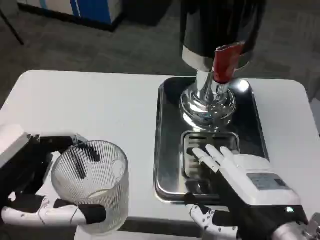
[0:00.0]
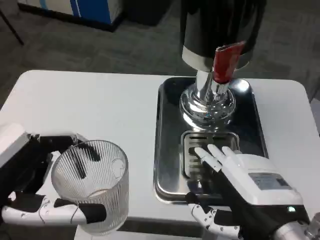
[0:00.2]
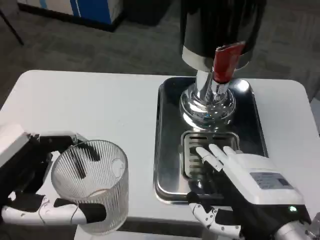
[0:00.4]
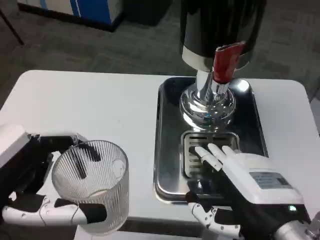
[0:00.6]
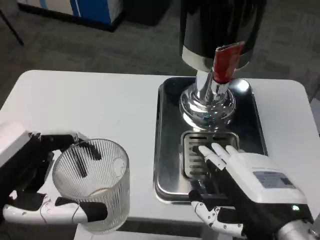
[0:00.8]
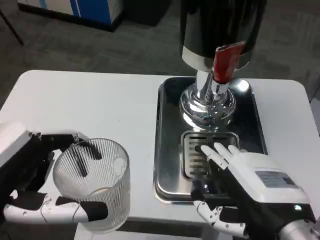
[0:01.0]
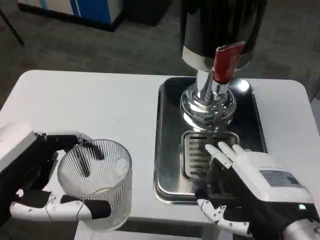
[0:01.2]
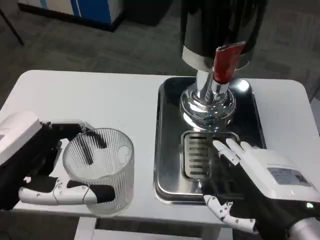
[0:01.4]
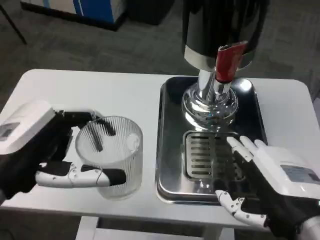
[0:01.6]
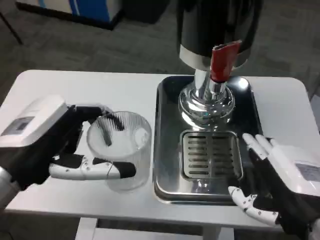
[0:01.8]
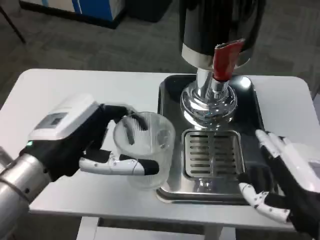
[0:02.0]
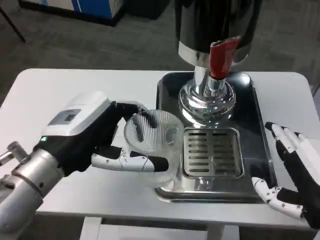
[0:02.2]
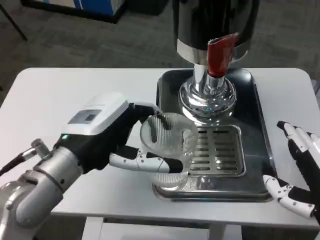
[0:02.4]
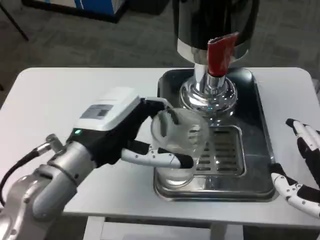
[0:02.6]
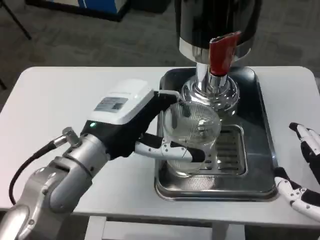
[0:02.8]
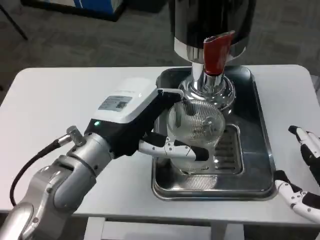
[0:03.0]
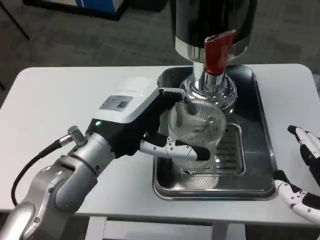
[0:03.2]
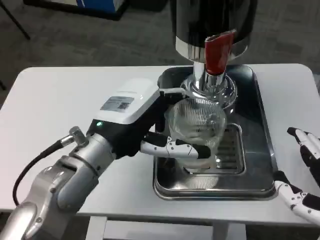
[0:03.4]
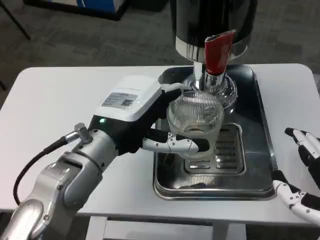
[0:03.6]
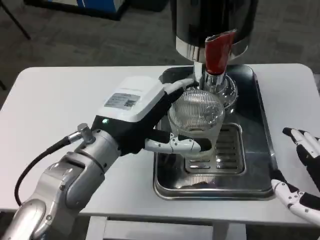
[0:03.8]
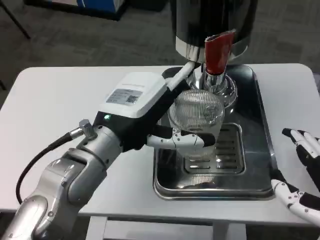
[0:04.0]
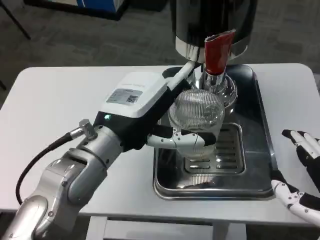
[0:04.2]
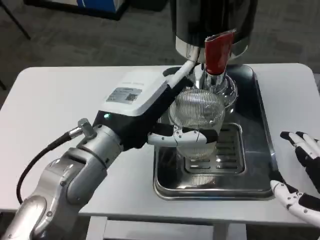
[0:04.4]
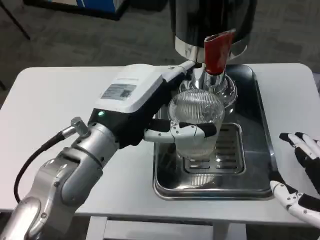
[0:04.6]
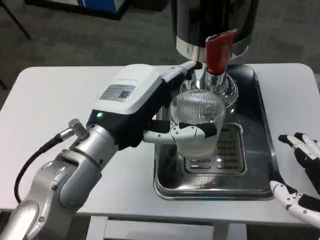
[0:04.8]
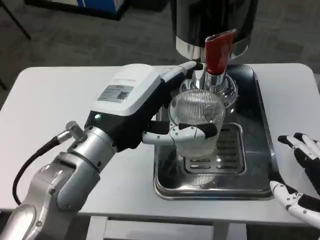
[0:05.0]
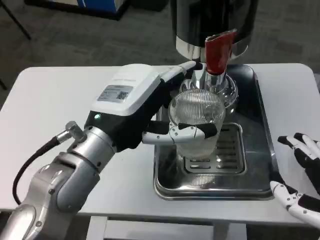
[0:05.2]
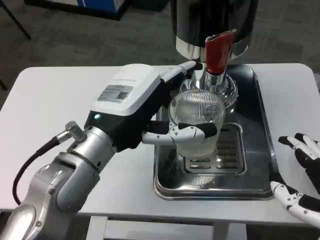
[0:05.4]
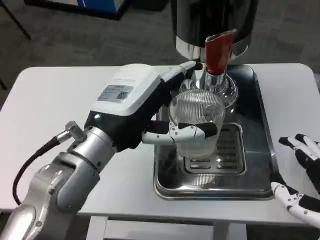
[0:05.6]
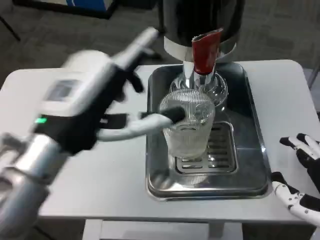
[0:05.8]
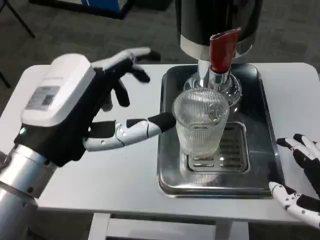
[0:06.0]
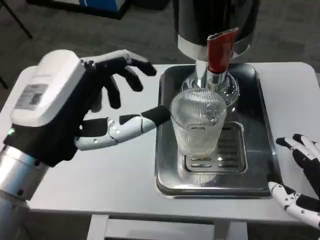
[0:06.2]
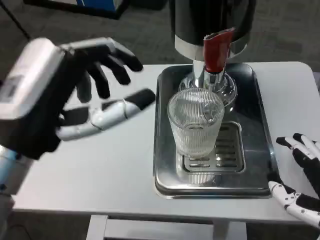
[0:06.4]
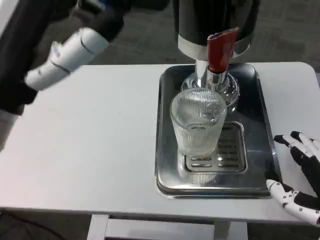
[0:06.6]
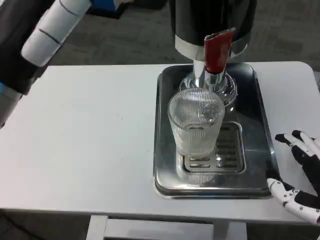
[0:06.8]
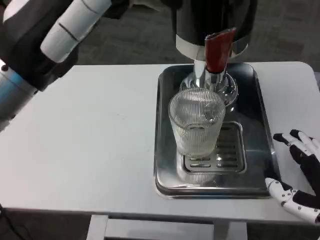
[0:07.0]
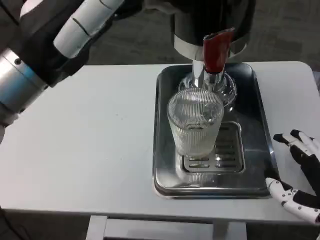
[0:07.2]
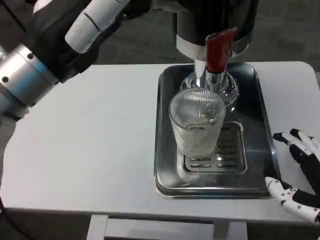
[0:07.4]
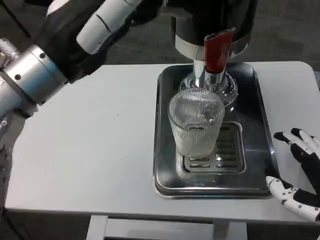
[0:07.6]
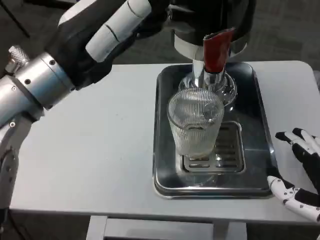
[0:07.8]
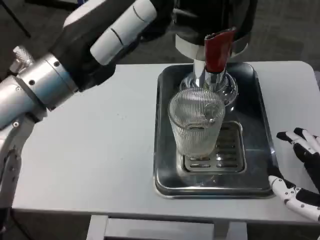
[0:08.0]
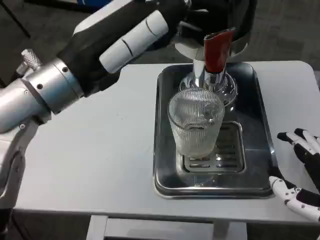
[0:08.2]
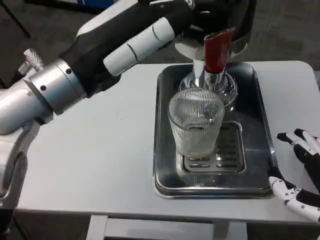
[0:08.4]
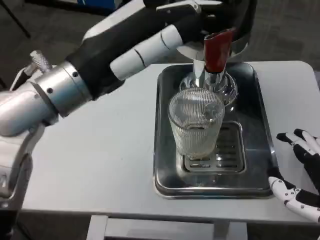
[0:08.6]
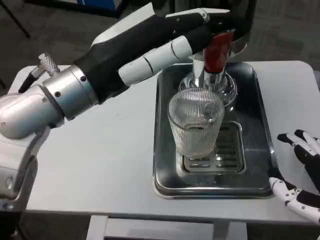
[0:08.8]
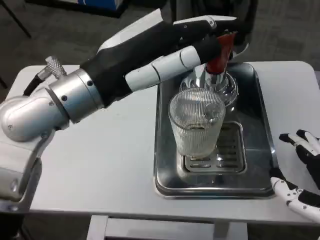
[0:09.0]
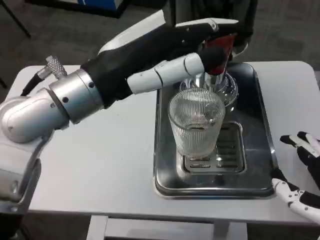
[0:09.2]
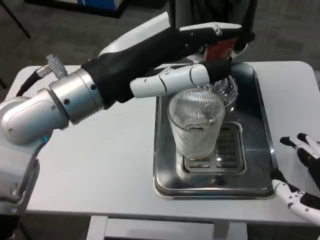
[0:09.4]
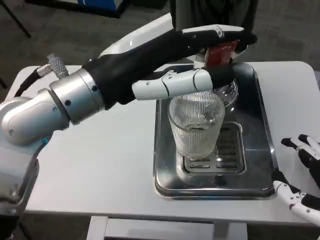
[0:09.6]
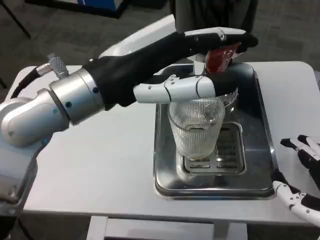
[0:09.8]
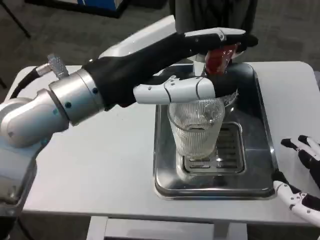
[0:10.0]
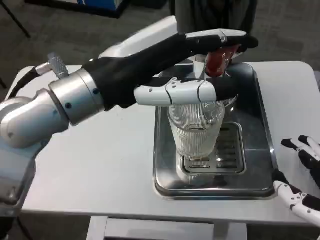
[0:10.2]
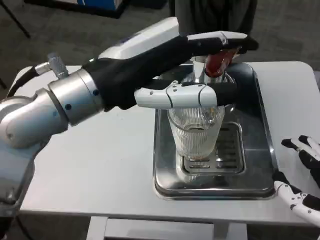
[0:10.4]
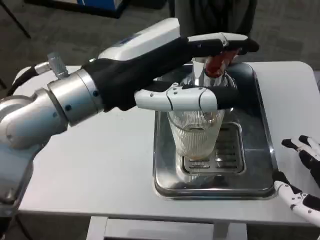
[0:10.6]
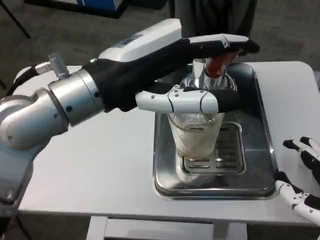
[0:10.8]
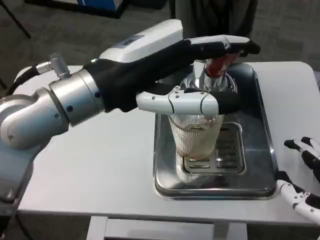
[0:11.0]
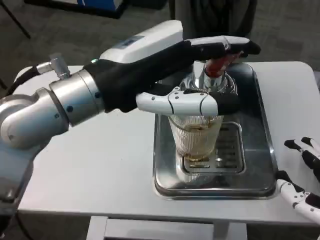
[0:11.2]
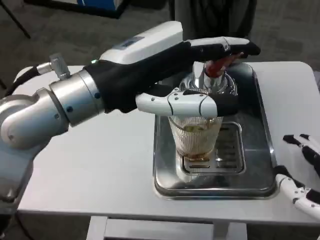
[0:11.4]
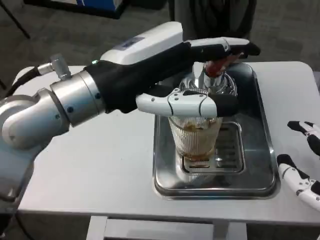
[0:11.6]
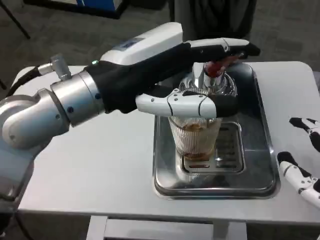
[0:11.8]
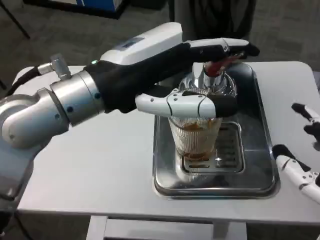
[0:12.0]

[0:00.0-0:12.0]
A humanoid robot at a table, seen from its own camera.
Task of the whole recording: Grasp the cup under the faucet to collect the drink, then remove the cup.
0:00.0 to 0:01.6: The left hand moves forward, roughly 5 cm.
0:01.6 to 0:03.0: The right hand shifts by approximately 5 cm. The left hand goes about 15 cm to the right and forward.
0:04.4 to 0:06.0: The left hand shifts about 10 cm backward and to the left.
0:06.0 to 0:07.6: The left hand travels upward and forward by approximately 10 cm.

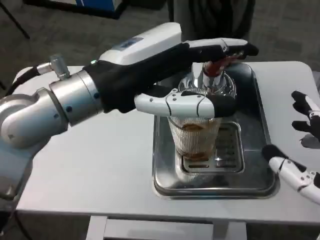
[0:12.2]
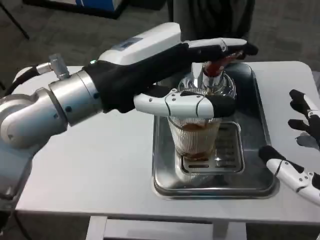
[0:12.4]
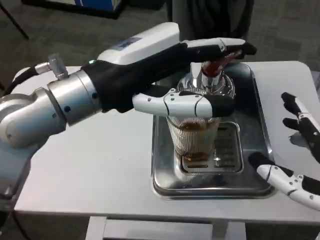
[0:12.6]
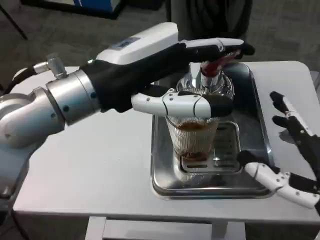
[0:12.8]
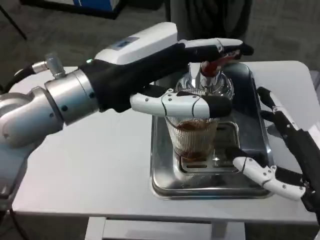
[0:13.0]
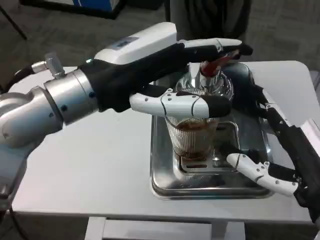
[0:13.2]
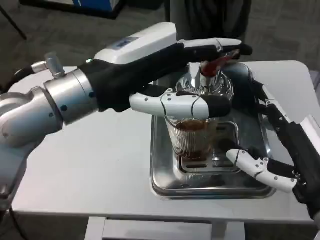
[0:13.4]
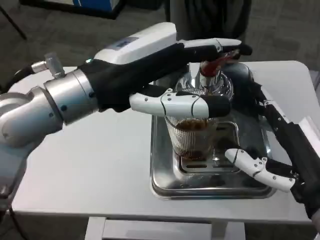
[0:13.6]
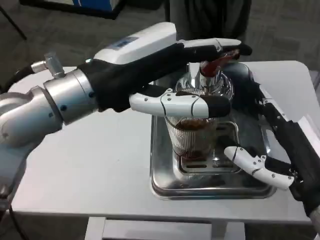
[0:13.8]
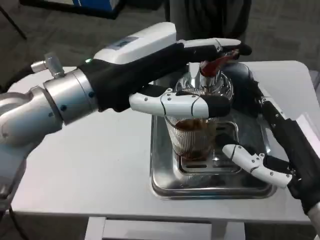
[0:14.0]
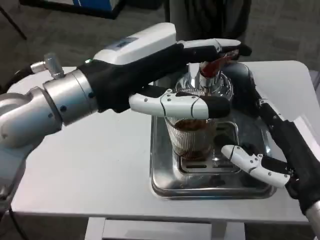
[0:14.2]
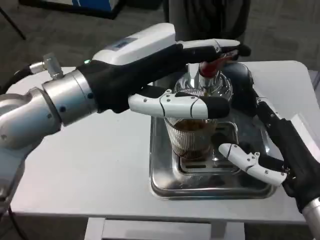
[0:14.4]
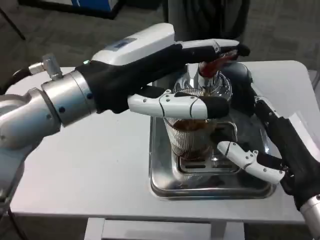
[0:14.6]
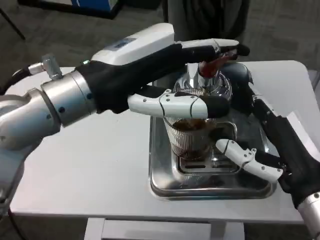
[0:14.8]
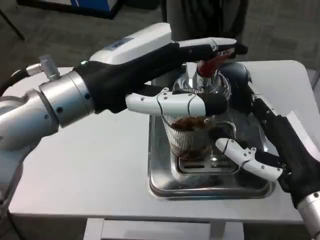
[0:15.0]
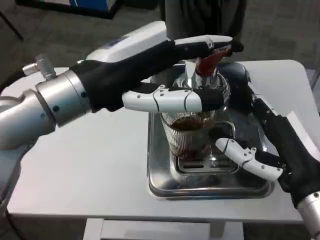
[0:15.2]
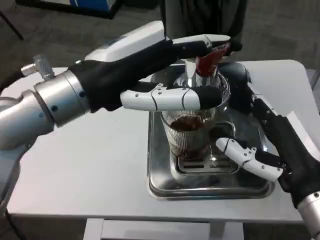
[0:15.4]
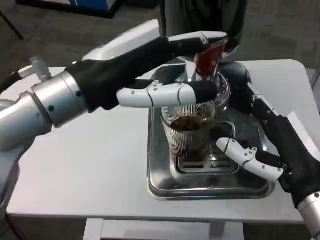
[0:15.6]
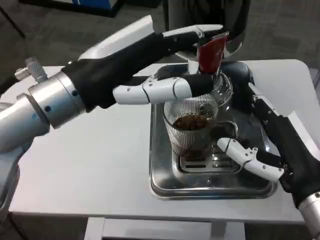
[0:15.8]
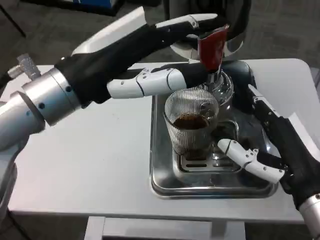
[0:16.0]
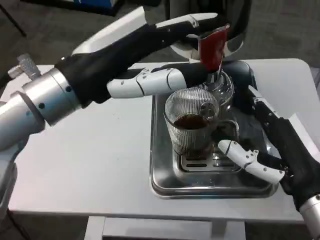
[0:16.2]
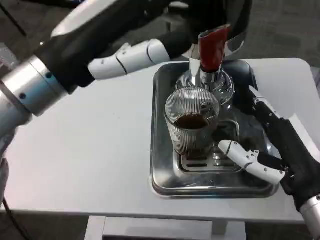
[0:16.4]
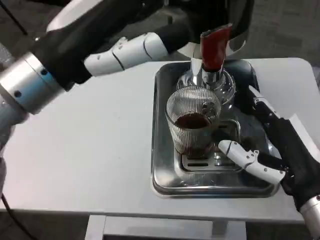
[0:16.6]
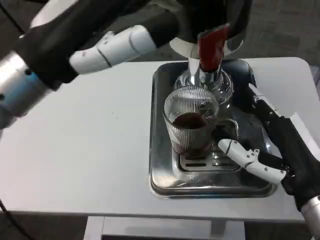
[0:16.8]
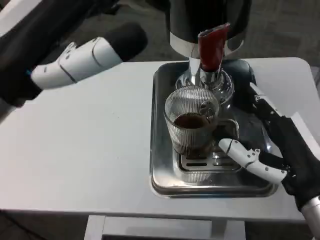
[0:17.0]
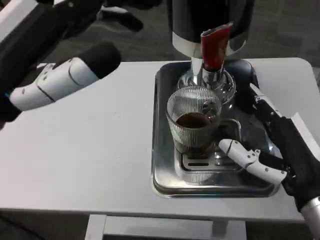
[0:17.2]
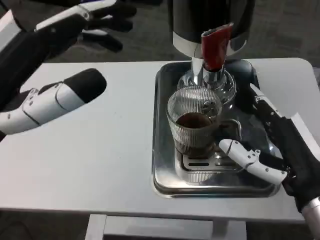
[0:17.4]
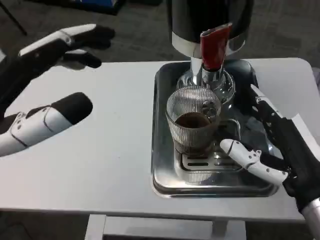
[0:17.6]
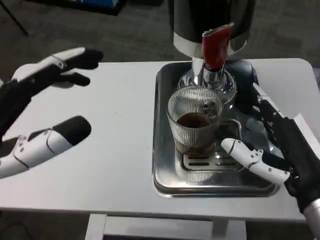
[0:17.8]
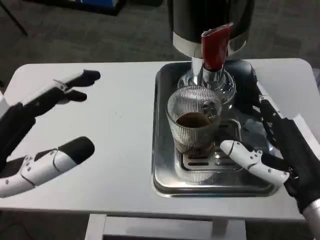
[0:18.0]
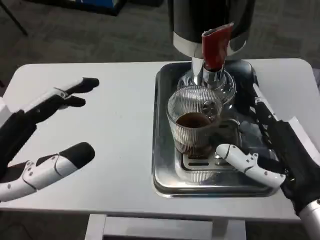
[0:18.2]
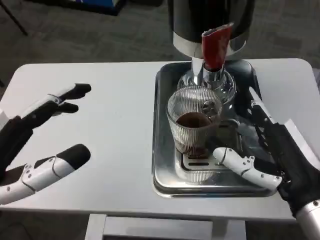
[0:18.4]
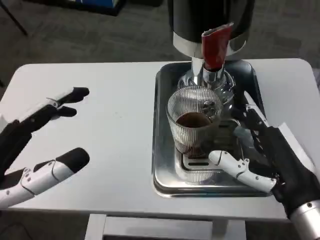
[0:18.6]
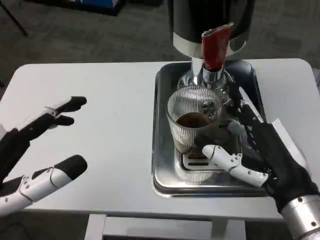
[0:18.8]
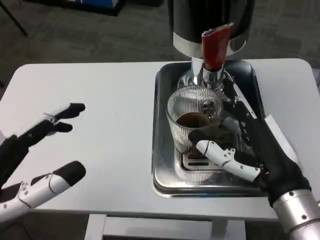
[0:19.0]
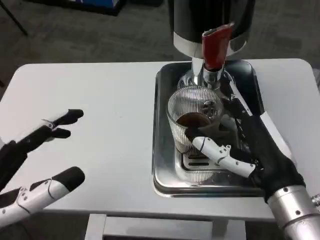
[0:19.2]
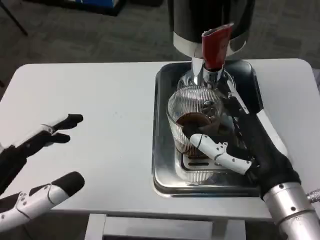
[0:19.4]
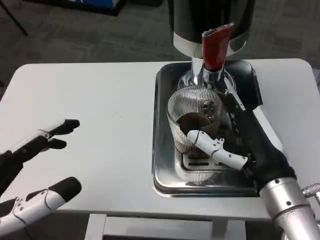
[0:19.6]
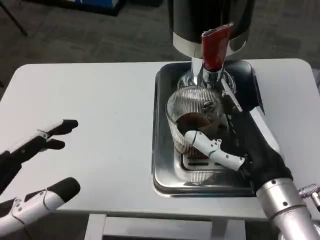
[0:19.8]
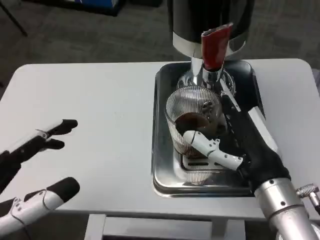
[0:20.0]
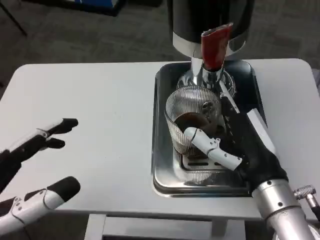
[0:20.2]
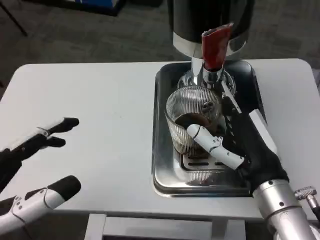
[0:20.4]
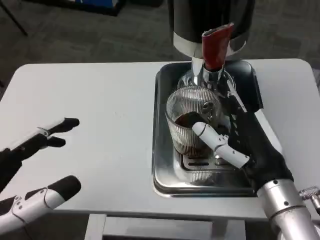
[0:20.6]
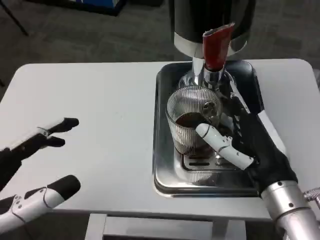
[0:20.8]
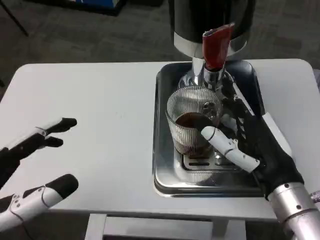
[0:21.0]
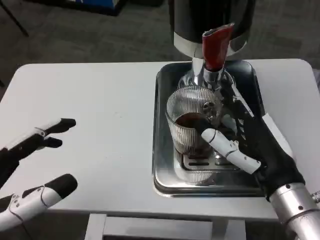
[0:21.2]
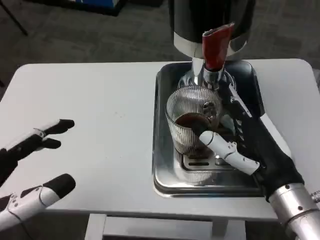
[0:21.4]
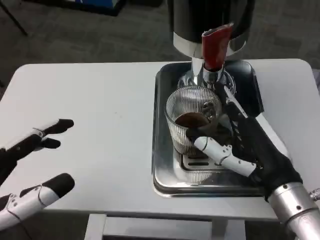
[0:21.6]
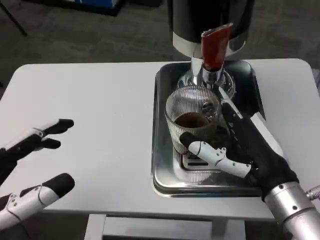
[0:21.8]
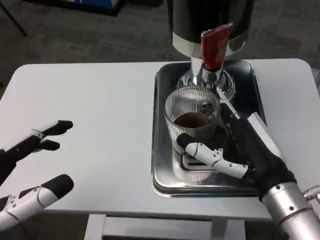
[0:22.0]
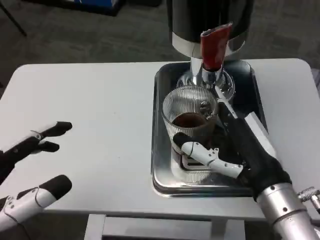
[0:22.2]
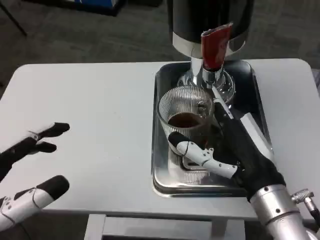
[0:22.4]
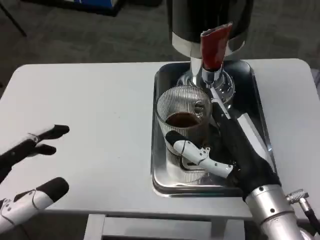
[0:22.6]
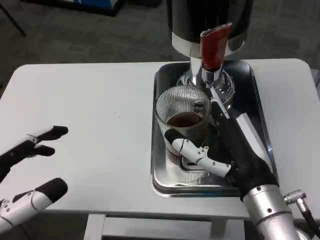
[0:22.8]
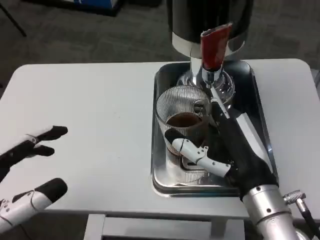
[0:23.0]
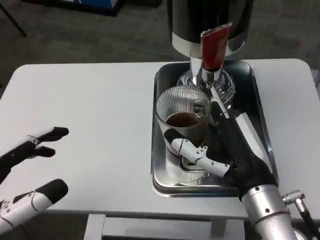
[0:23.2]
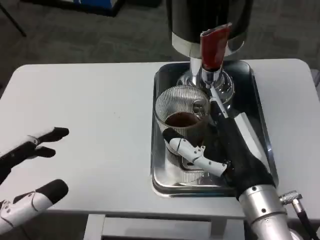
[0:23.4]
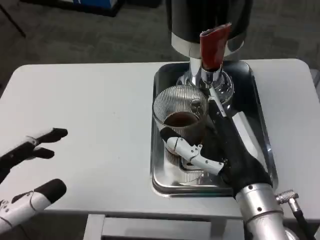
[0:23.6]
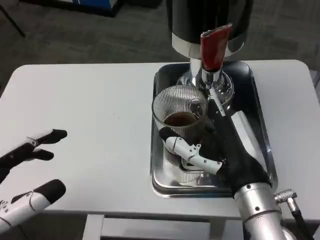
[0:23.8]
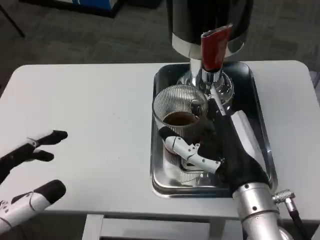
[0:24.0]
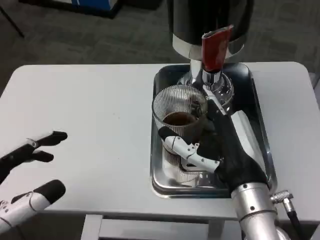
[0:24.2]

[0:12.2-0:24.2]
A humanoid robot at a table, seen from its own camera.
Task of the whole recording: Grasp the cup under the faucet to collect the drink, then remove the cup.
0:12.2 to 0:13.8: The right hand shifts by about 5 cm.
0:16.6 to 0:18.2: The left hand goes some 15 cm downward, backward and to the left.
0:18.2 to 0:19.8: The right hand moves about 5 cm.
0:19.8 to 0:21.2: There are only small adjustments of the hands.
